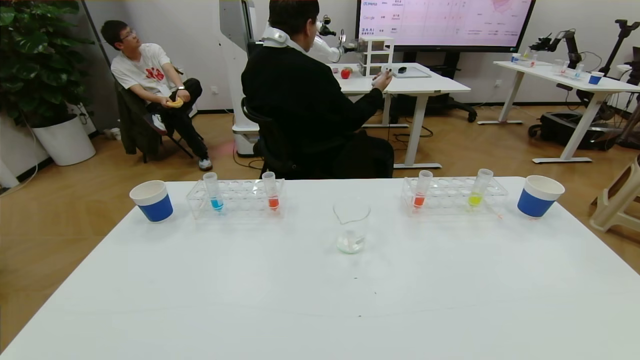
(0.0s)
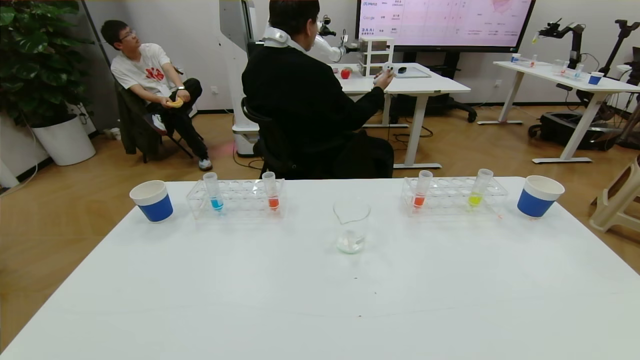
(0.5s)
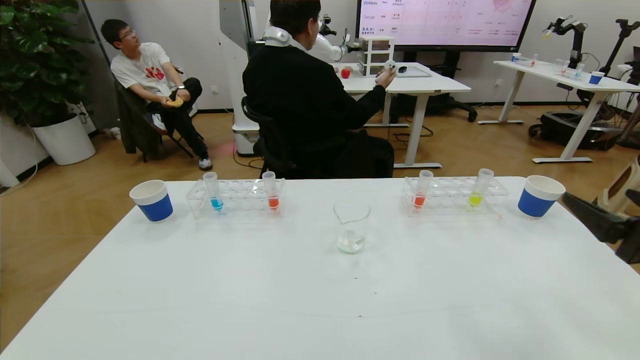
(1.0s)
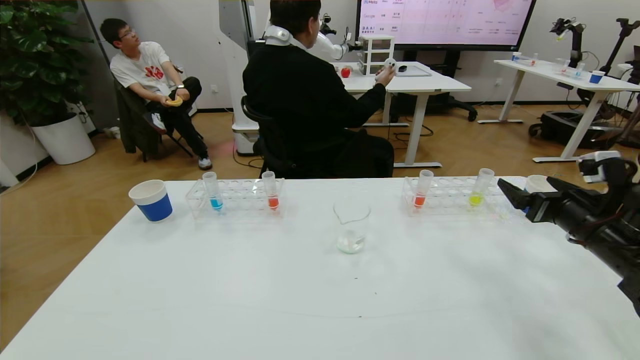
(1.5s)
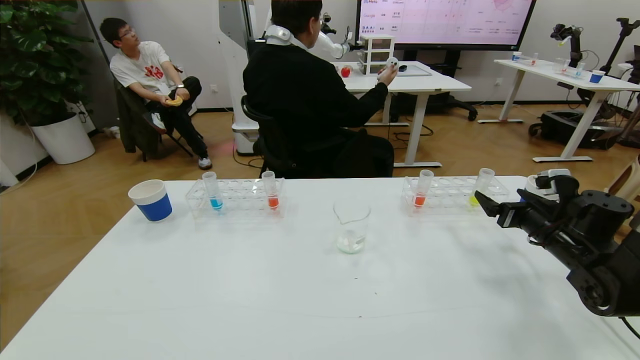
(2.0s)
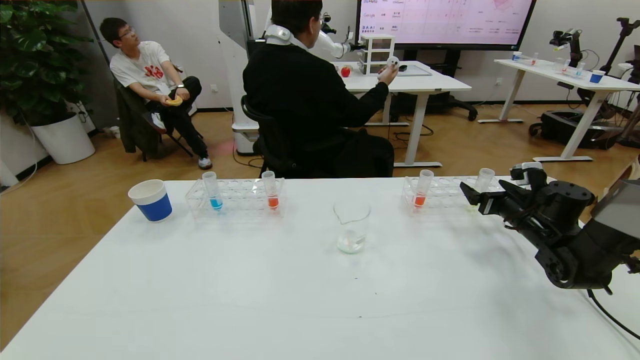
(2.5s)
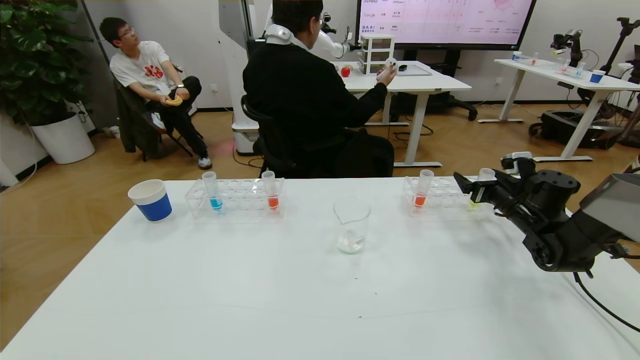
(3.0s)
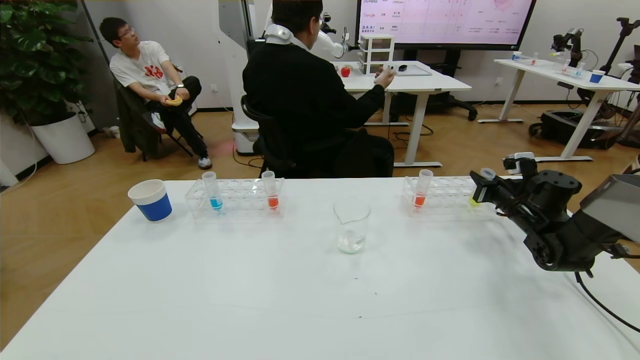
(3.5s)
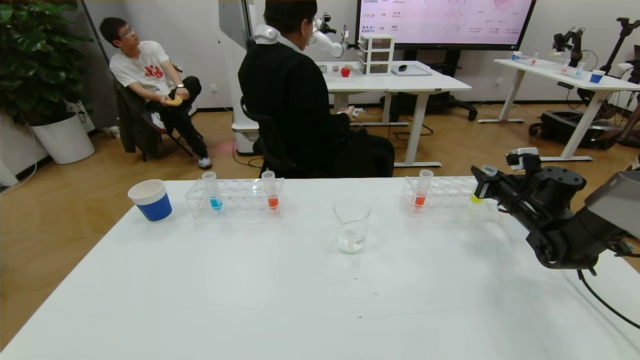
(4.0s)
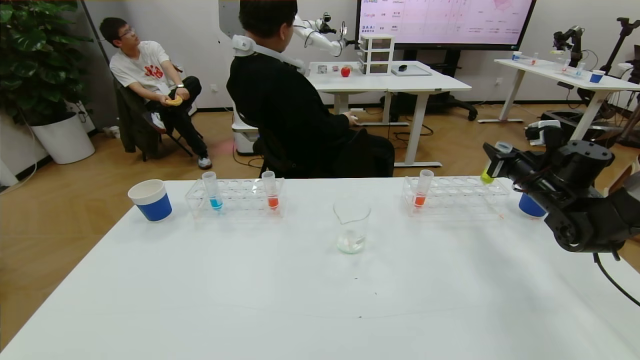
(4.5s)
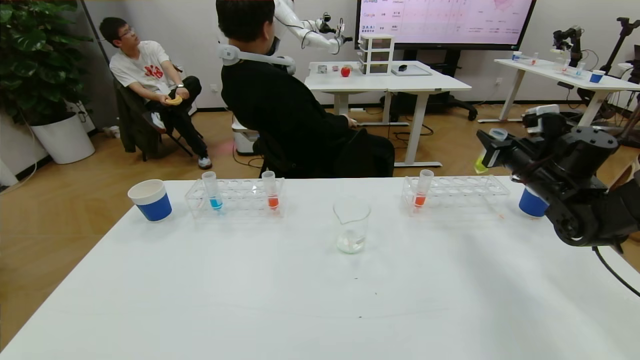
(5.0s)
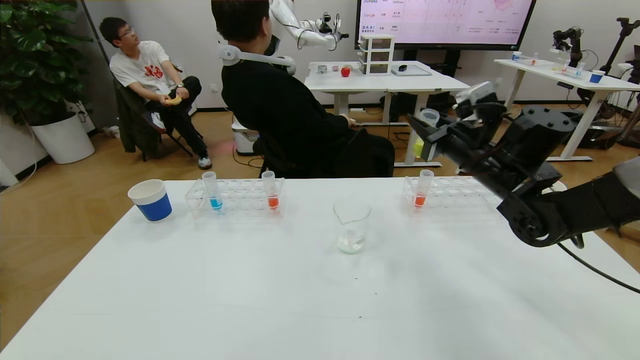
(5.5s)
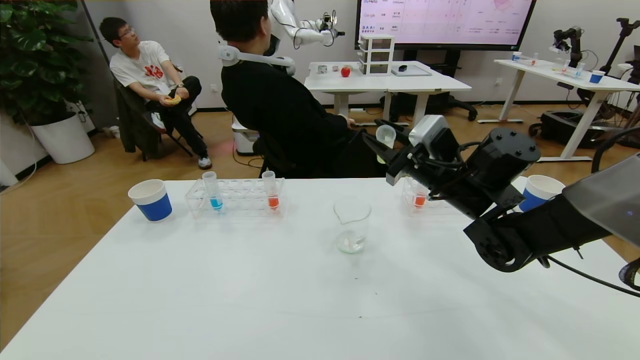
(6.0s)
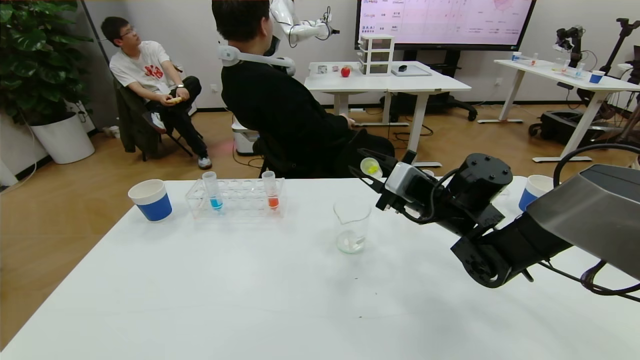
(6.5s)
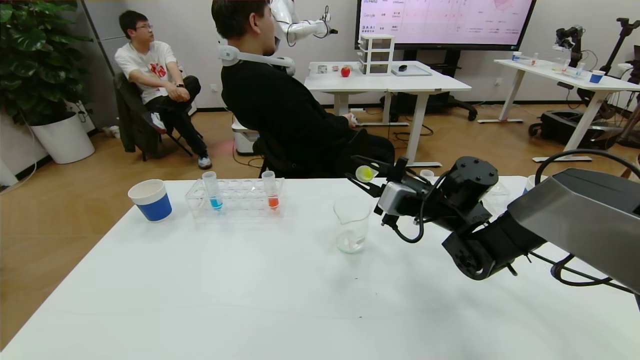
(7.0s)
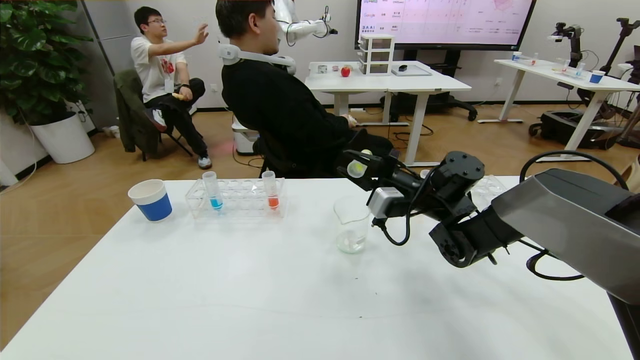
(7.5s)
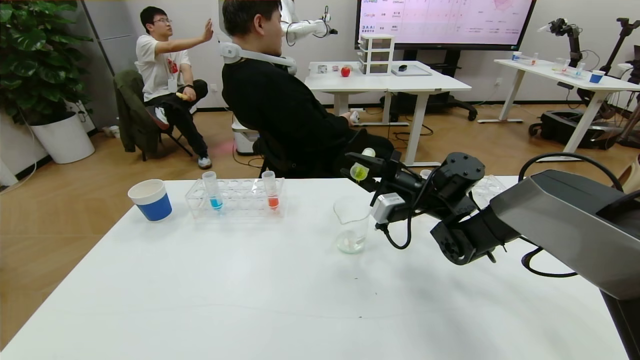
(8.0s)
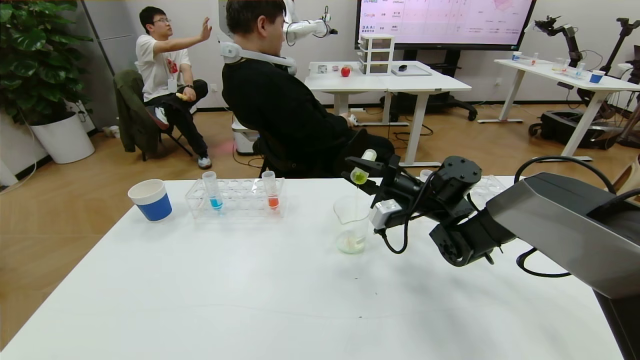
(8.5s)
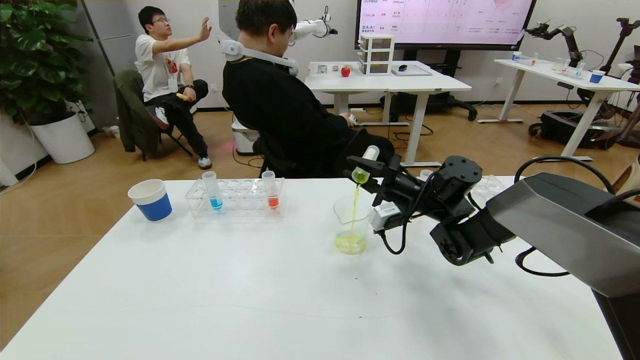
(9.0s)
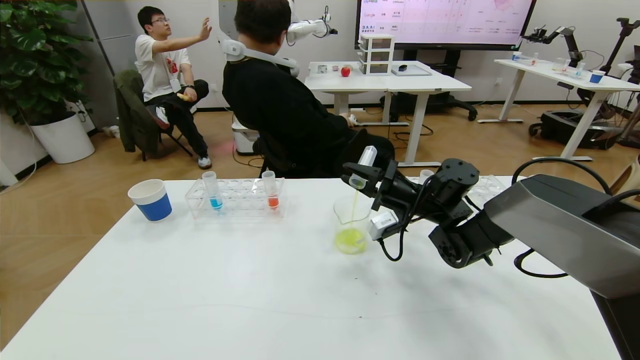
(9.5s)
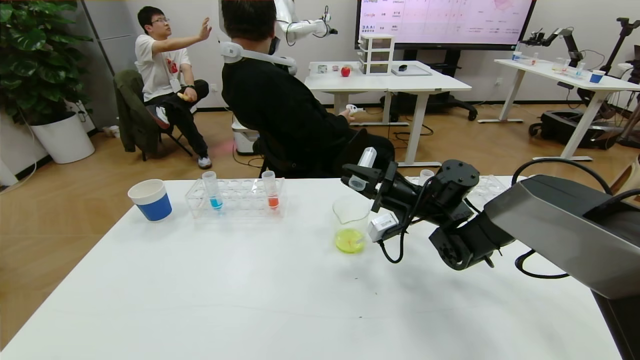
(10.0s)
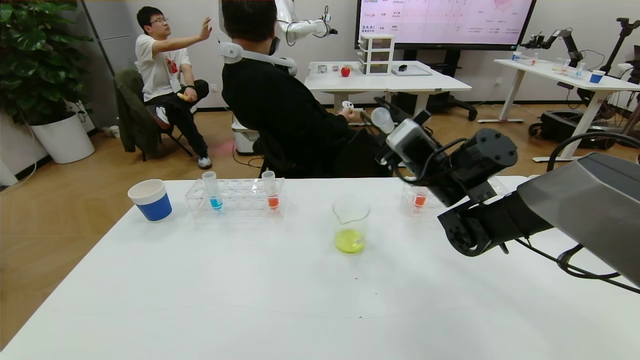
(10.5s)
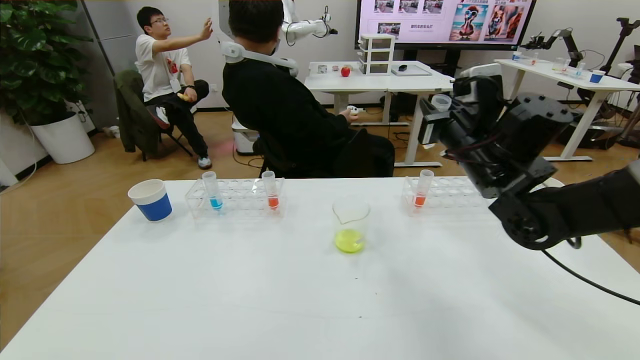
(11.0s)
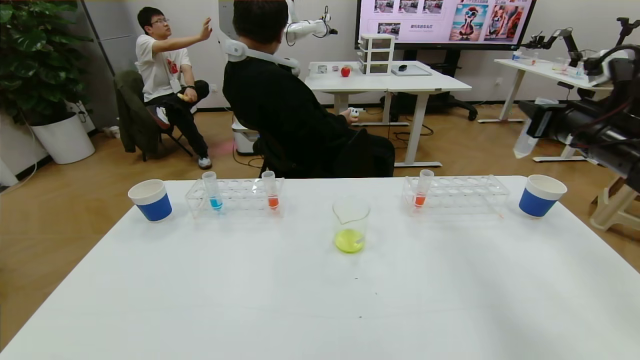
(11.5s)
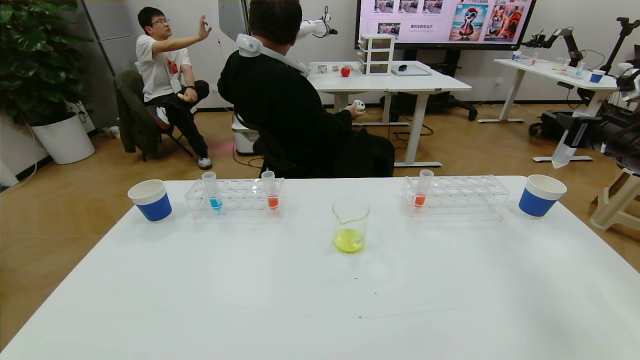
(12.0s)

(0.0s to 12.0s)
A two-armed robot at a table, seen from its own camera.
Task of the whole recording: pick up the test tube with yellow pigment and the test tube with blue pigment by grippers and pour them into the beaker.
0.0s - 2.0s: The right gripper is displaced forward by approximately 35 cm.
2.0s - 4.0s: The right gripper moves forward, about 10 cm, and closes its fingers.
4.0s - 6.0s: The right gripper moves to the left and upward, roughly 25 cm.
6.0s - 8.0s: The right gripper moves downward and forward, approximately 10 cm.
10.0s - 12.0s: The right gripper goes about 30 cm to the right and upward.

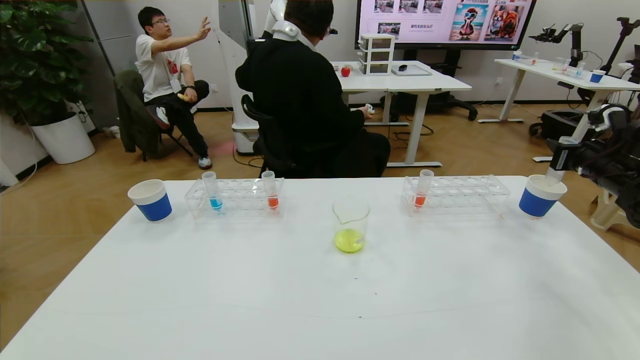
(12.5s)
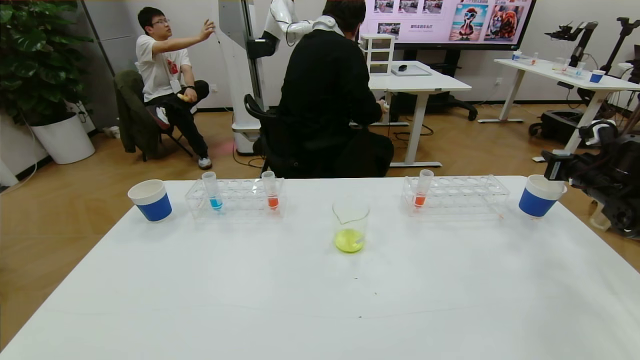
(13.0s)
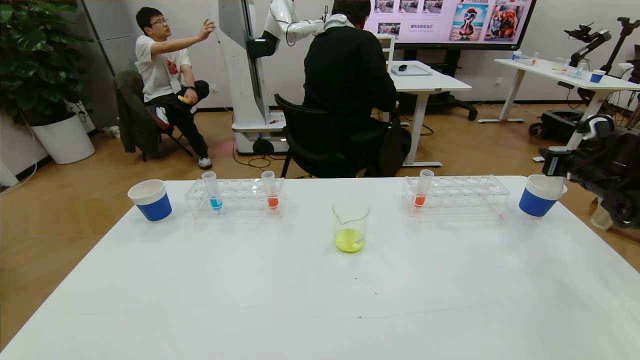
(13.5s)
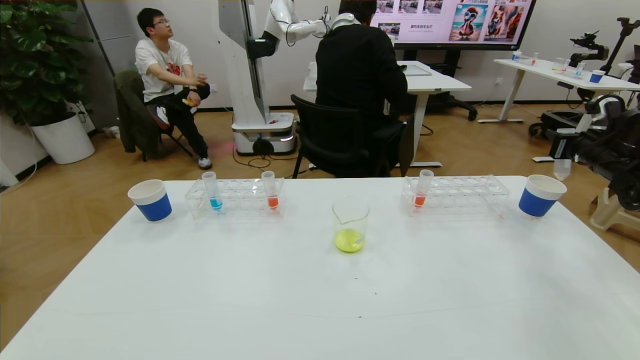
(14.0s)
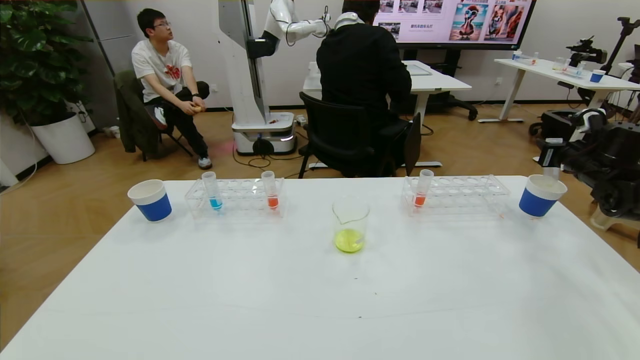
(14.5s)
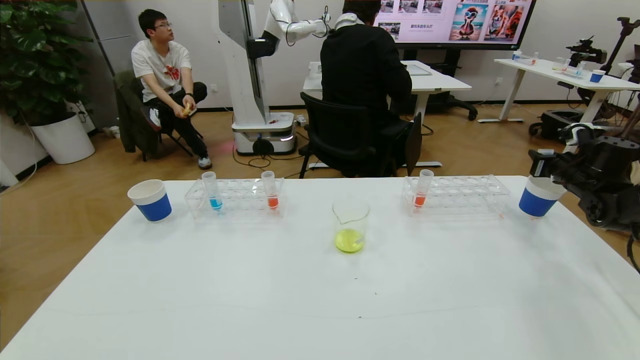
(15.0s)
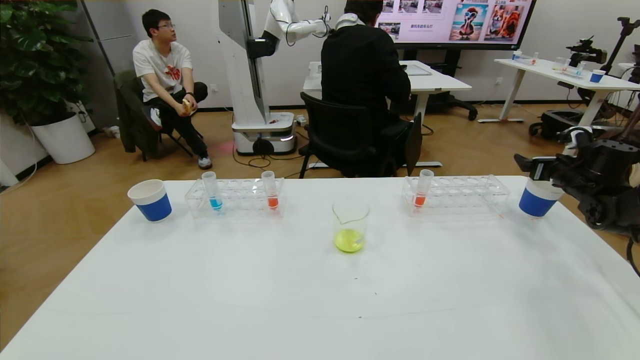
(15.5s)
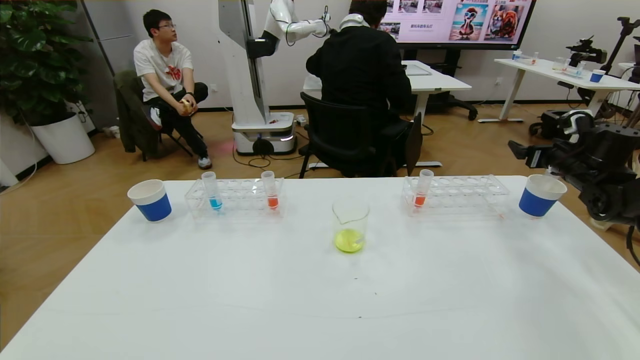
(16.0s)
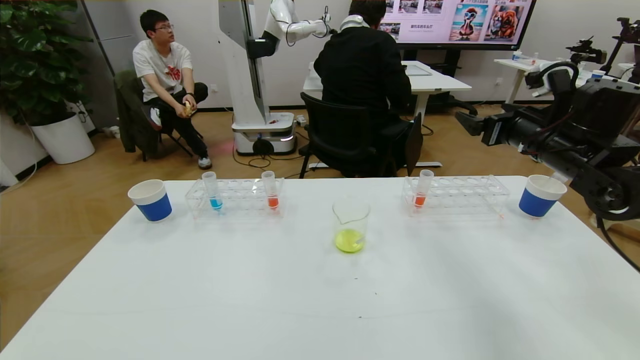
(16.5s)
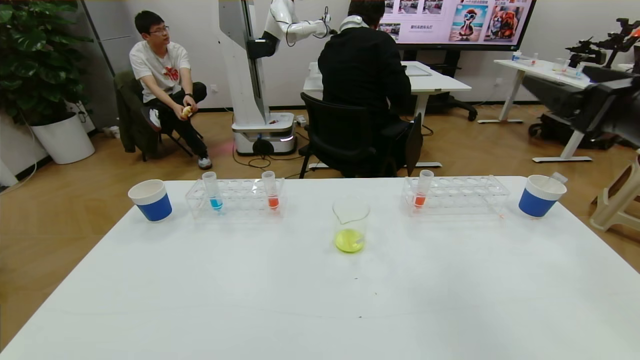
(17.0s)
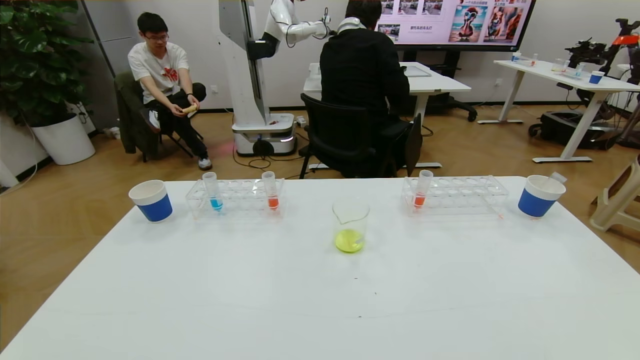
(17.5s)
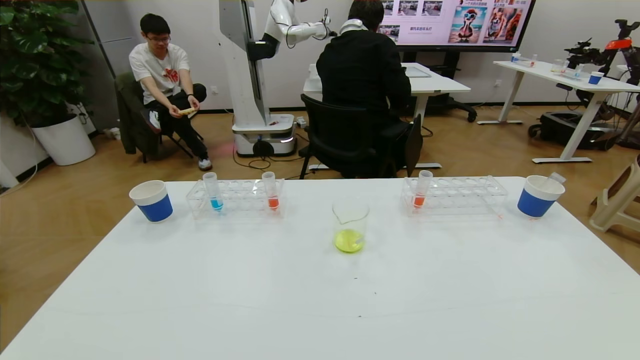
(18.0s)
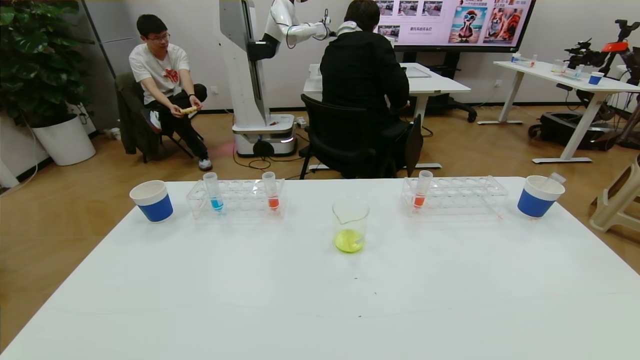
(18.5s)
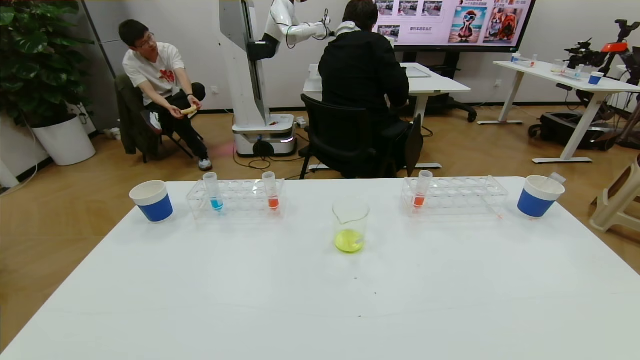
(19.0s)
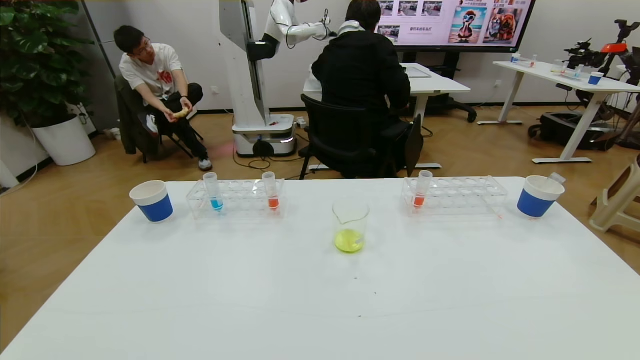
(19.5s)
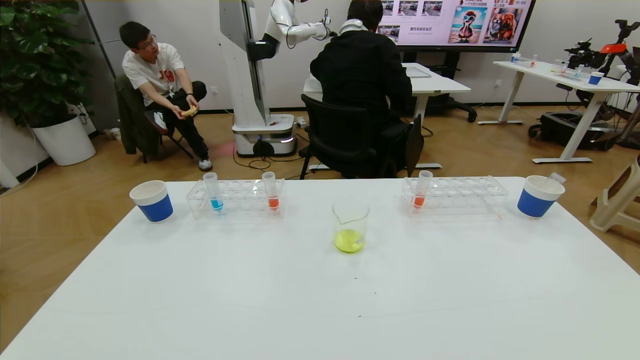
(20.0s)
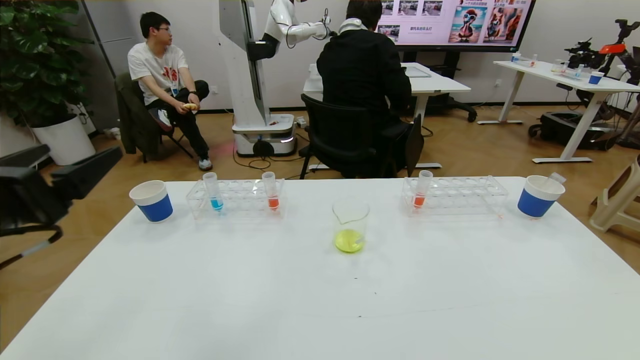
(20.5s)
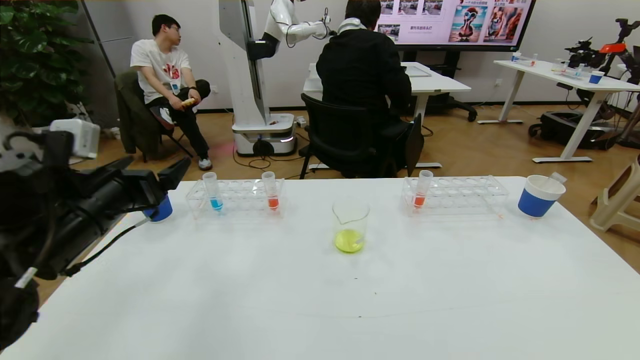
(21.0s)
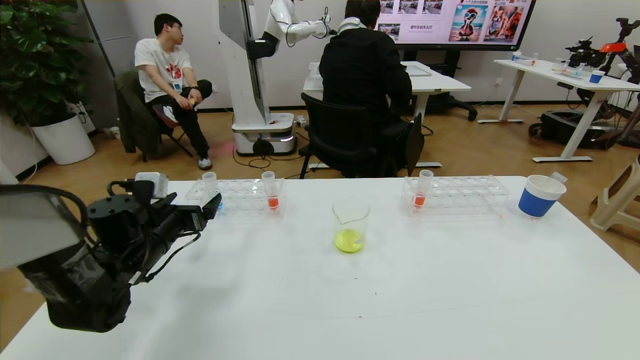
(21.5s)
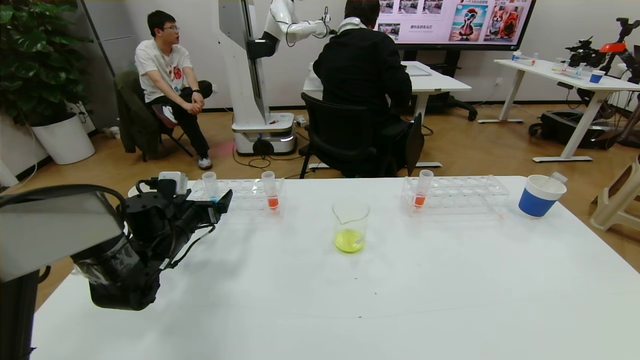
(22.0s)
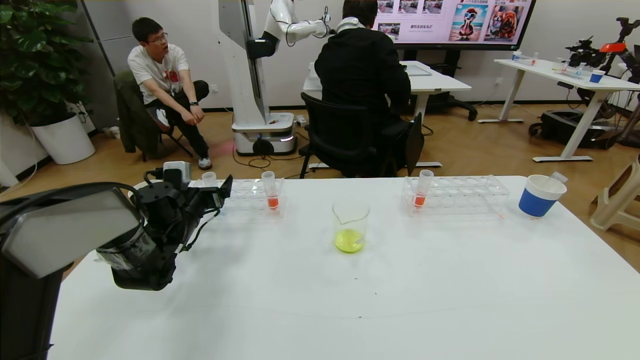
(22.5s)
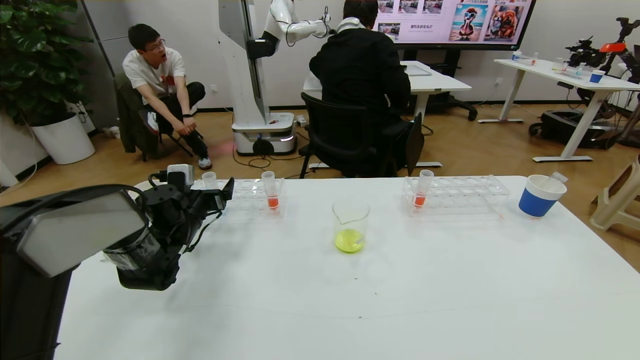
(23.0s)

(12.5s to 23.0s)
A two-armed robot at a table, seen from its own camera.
Task of the whole recording: pick up the test tube with yellow pigment and the test tube with blue pigment by grippers and pour them into the beaker.
Step, 12.5s - 17.5s: Pour the yellow reagent into the graduated cylinder and place the test tube into the paper cup.
12.5s - 14.5s: The right gripper goes some 5 cm forward.
14.5s - 16.5s: The right gripper travels to the left, upward and backward by about 25 cm, and opens its fingers.
16.5s - 19.0s: The right gripper travels backward and downward by approximately 40 cm.
19.0s - 21.0s: The left gripper heads forward, covering about 30 cm.
21.0s - 23.0s: The left gripper goes about 20 cm forward and downward.
